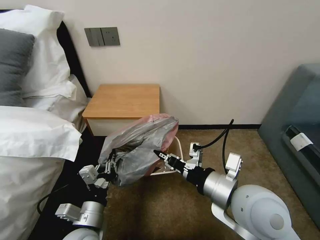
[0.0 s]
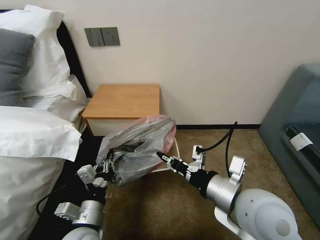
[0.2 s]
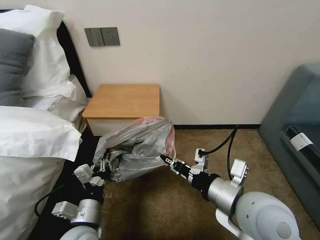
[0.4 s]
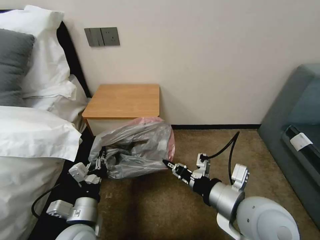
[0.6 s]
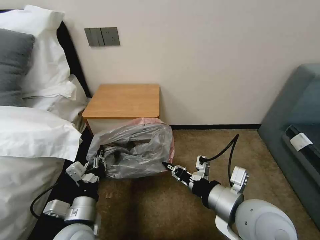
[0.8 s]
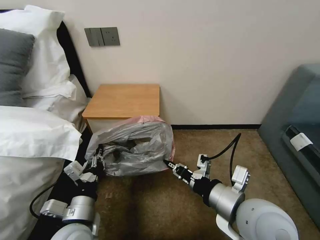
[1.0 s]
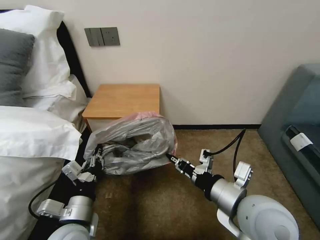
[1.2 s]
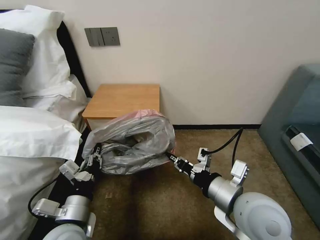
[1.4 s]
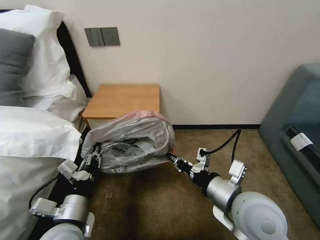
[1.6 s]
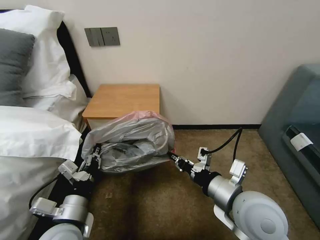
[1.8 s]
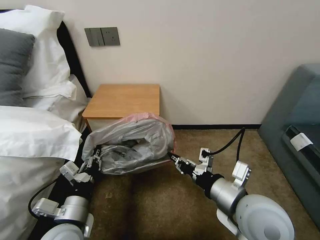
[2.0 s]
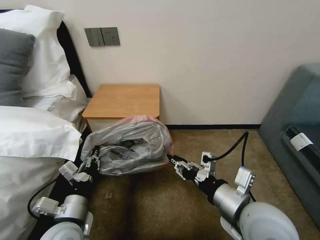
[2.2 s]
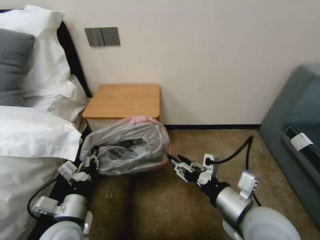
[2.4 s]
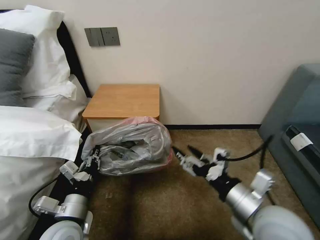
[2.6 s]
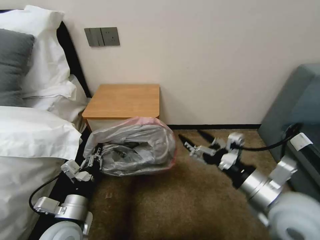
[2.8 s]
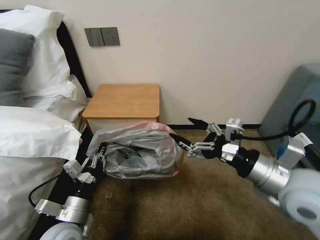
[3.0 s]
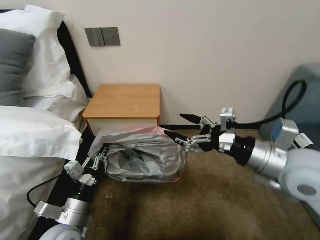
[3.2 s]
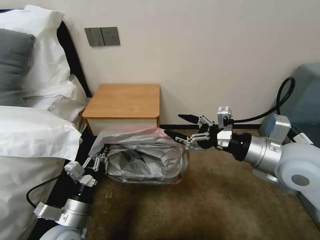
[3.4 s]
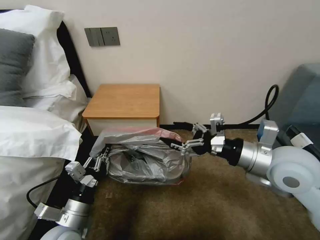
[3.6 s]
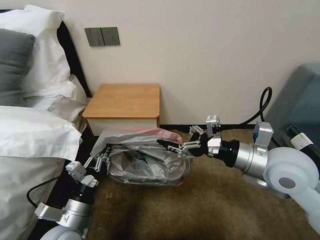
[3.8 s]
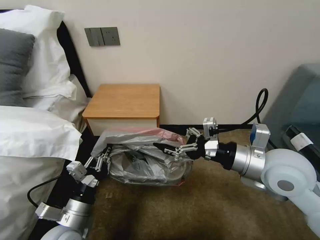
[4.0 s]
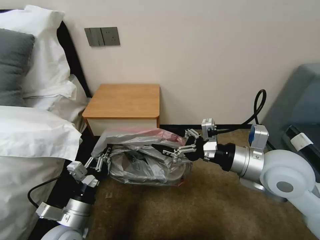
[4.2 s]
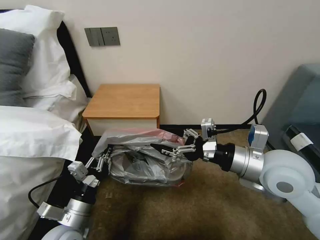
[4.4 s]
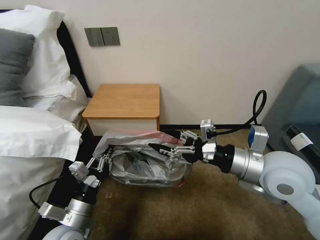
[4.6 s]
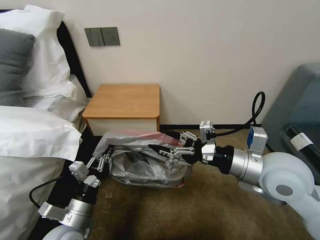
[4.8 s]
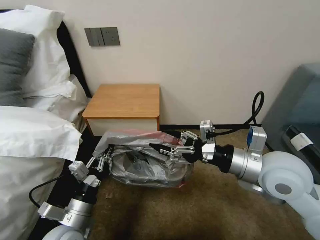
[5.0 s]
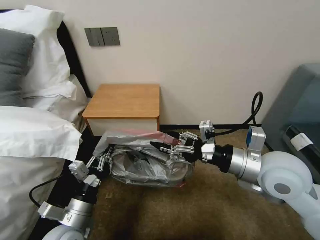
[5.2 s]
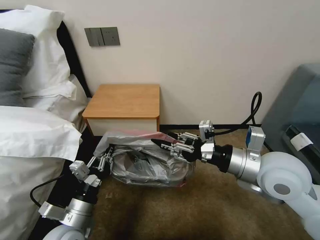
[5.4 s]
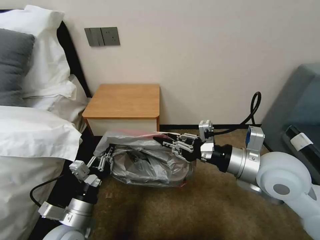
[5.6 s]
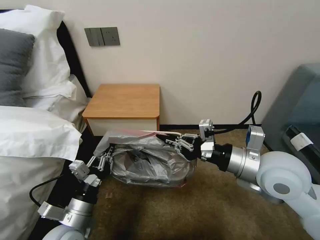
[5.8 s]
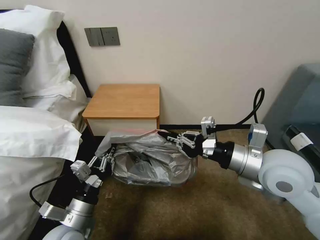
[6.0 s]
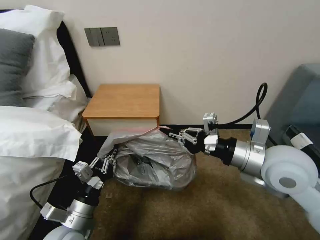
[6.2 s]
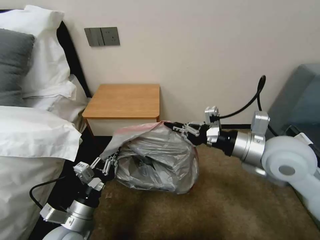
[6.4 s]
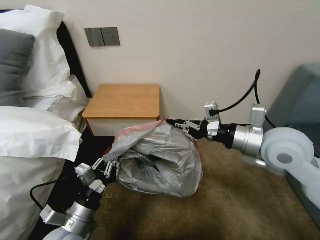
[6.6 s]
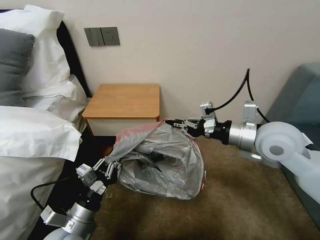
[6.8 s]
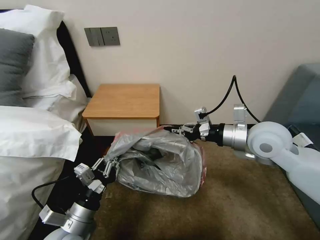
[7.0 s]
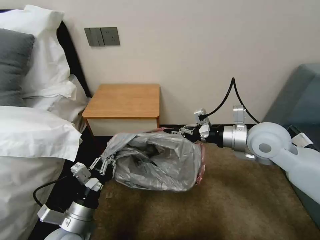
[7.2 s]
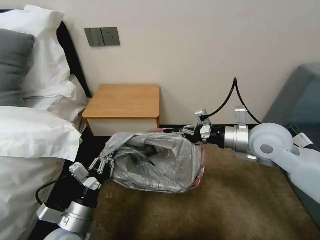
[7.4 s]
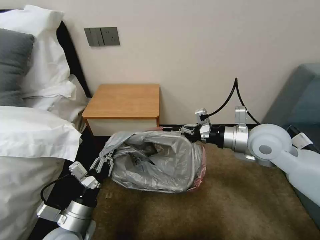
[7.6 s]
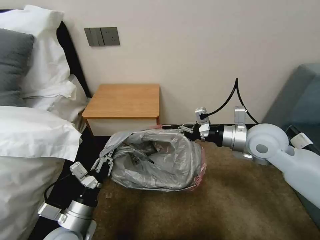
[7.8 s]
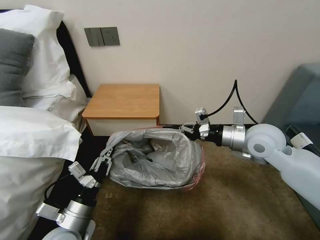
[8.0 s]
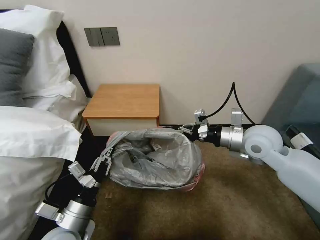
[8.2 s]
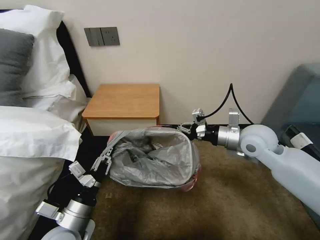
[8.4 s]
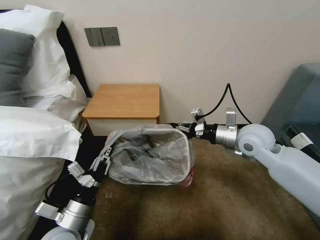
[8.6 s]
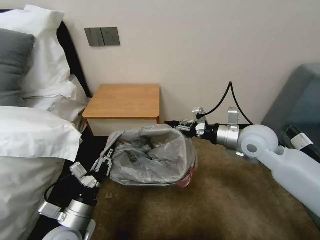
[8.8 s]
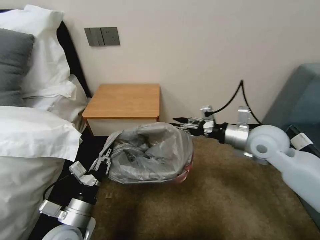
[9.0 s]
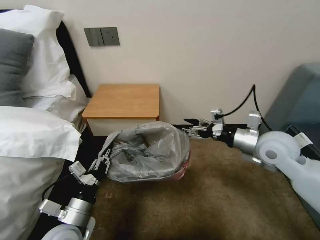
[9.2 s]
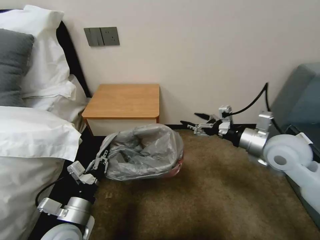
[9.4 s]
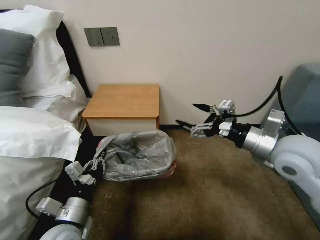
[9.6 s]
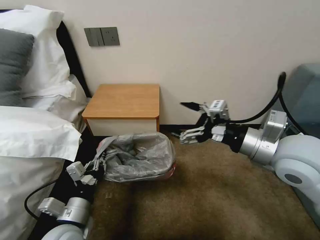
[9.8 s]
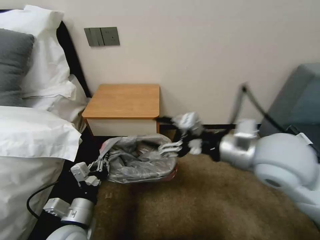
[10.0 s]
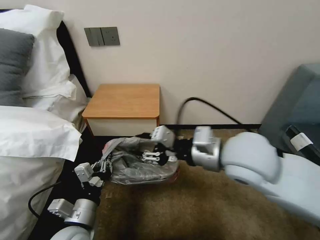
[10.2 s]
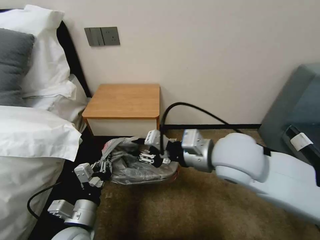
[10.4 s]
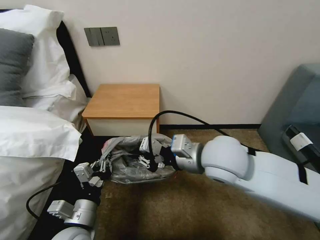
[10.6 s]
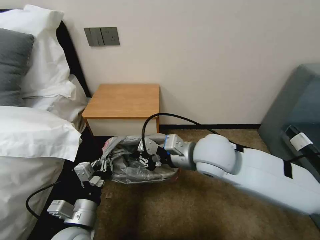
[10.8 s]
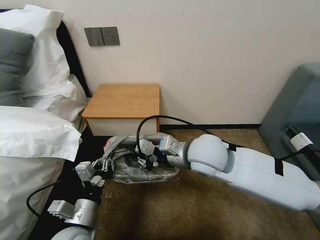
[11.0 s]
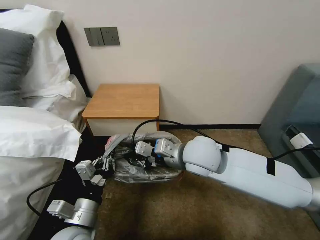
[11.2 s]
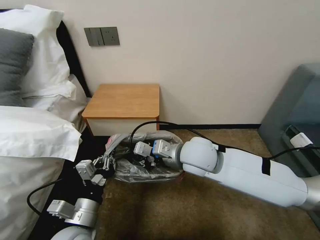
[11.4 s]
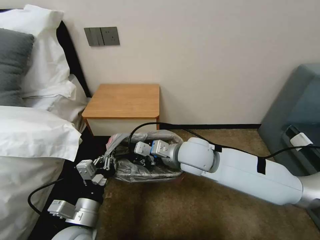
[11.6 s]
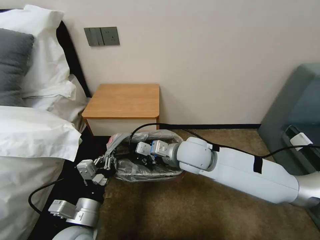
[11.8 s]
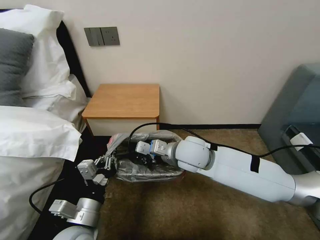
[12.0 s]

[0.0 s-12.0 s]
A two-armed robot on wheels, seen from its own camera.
Task of the whole recording: Pick up the garbage bag from the table and place it over the trash can.
0.0 to 1.6 s: The left gripper shifts by approximately 5 cm.
1.6 to 3.0 s: The right gripper travels to the right and upward by about 10 cm, and opens.
3.0 to 4.4 s: The right gripper changes place by approximately 5 cm.
4.4 to 6.0 s: The right gripper closes its fingers.
6.0 to 7.6 s: The right gripper shifts about 10 cm forward.
7.6 to 9.0 s: The right gripper opens its fingers.
9.0 to 10.4 s: The right gripper goes approximately 20 cm to the left, backward and upward, and opens, then closes once more.
10.4 to 12.0 s: The right gripper is displaced downward, forward and to the left by about 15 cm.

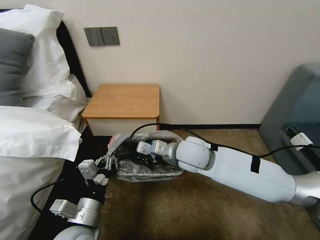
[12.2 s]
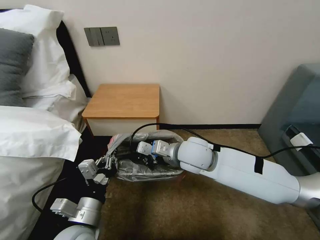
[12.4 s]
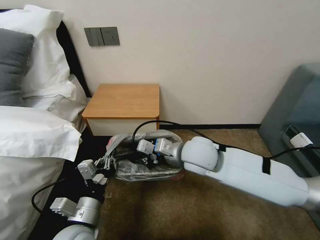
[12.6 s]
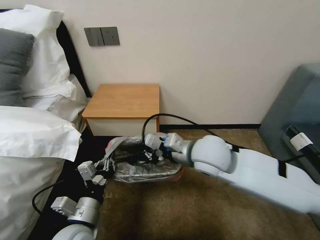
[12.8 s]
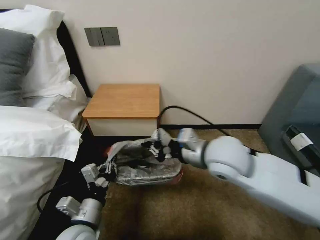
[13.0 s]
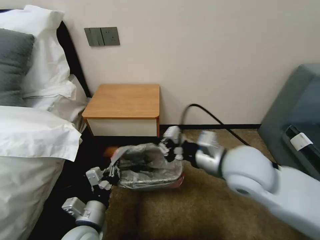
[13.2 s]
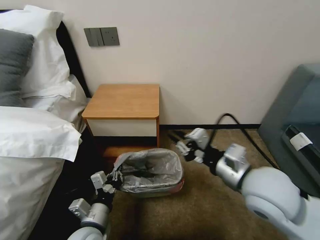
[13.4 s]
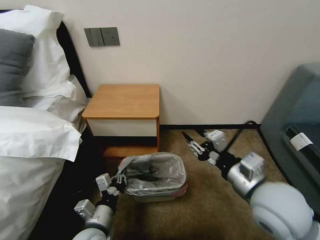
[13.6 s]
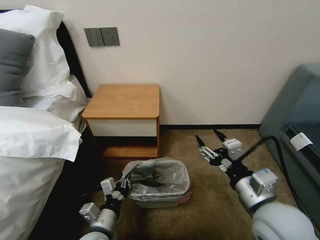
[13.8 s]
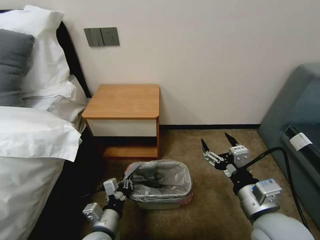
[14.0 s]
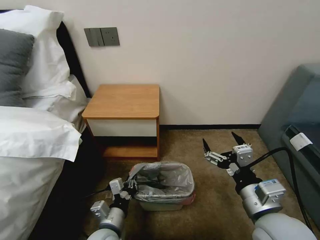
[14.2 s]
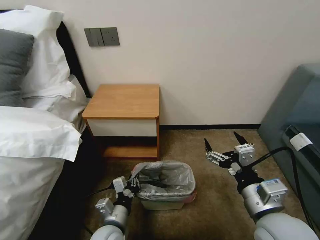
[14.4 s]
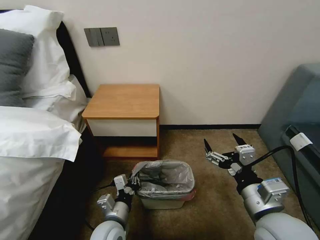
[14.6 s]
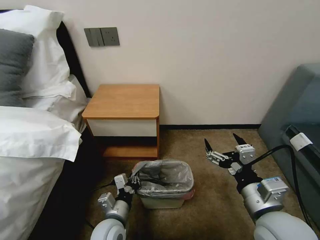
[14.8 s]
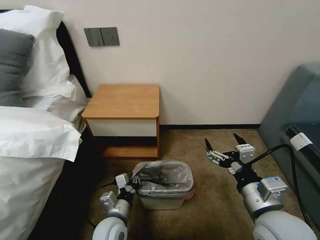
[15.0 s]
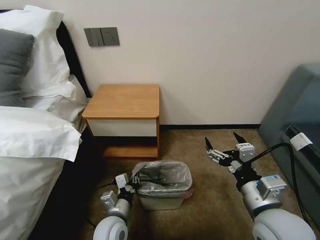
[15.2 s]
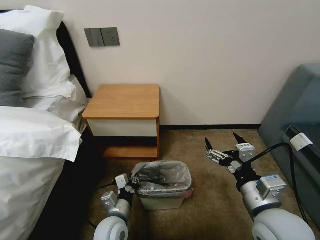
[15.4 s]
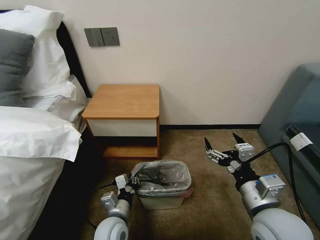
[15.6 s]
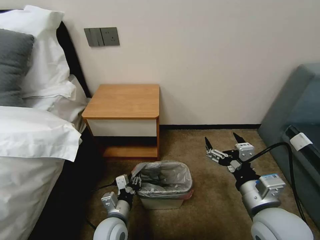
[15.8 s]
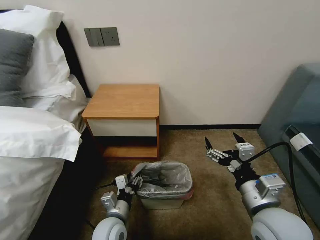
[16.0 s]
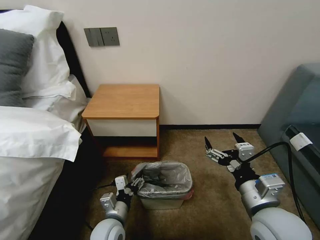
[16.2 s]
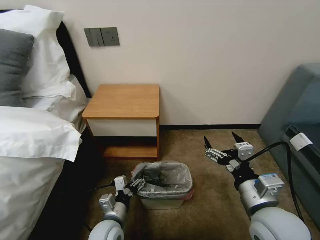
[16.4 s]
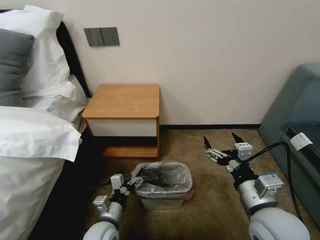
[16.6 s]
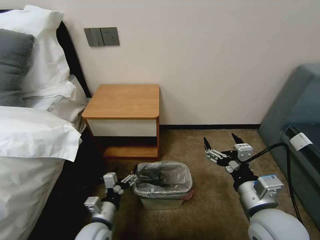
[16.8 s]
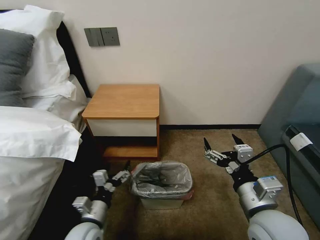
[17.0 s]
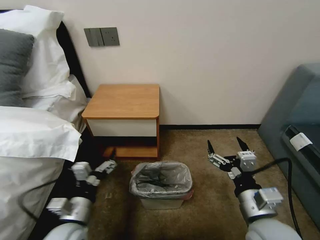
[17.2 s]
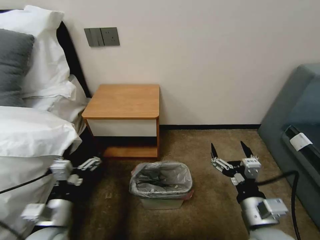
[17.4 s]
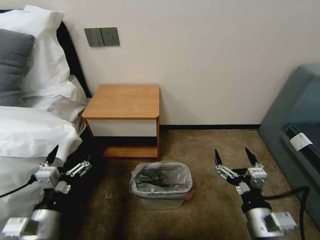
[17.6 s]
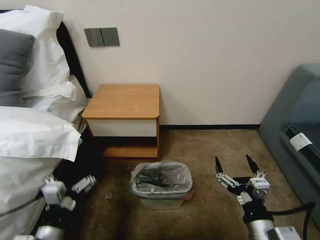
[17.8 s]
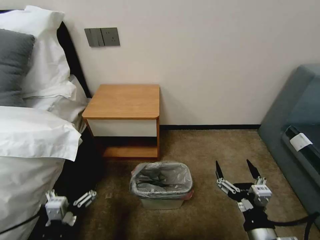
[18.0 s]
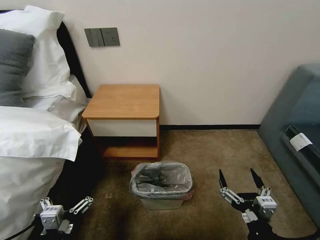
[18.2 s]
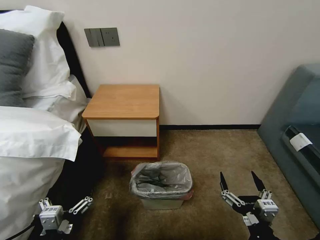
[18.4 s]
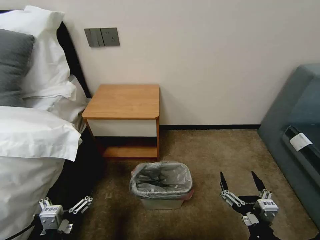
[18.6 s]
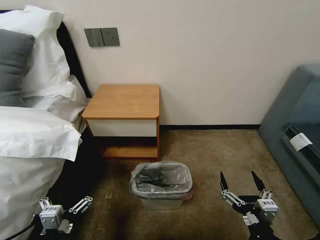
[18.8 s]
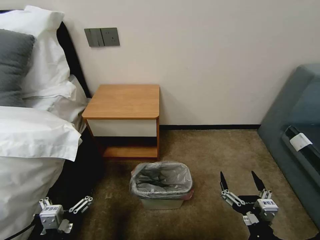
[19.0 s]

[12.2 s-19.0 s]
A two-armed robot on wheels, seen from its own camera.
Task of the whole recording: Pick up the garbage bag from the table and place it over the trash can.
12.2 to 13.6 s: The left gripper shifts about 5 cm downward; the right gripper shifts roughly 20 cm backward and to the right, and opens up.
13.6 to 15.0 s: The right gripper shifts by approximately 5 cm, and opens up; the left gripper moves about 5 cm.
15.0 to 16.2 s: The left gripper opens its fingers.
16.2 to 17.6 s: The left gripper goes approximately 20 cm upward, to the left and backward, while the right gripper is displaced downward by about 5 cm.
17.6 to 19.0 s: Both grippers move backward, roughly 5 cm.
